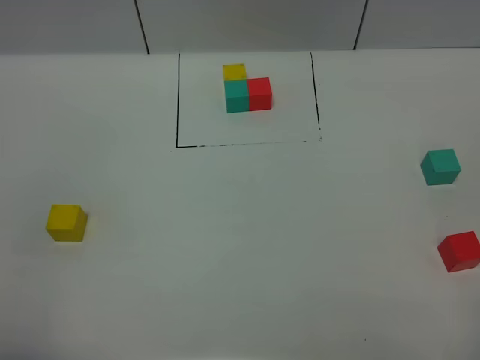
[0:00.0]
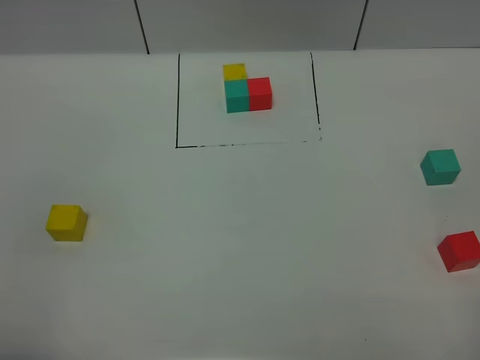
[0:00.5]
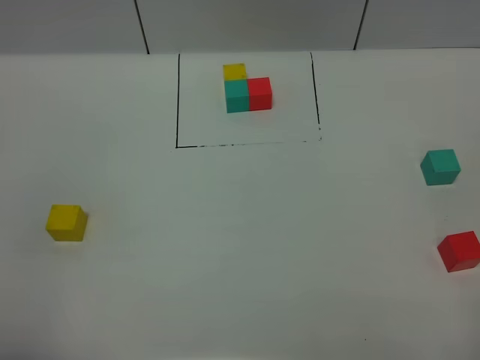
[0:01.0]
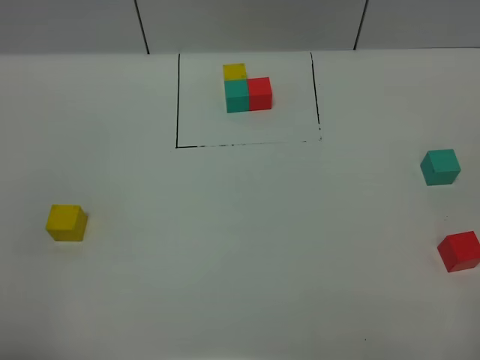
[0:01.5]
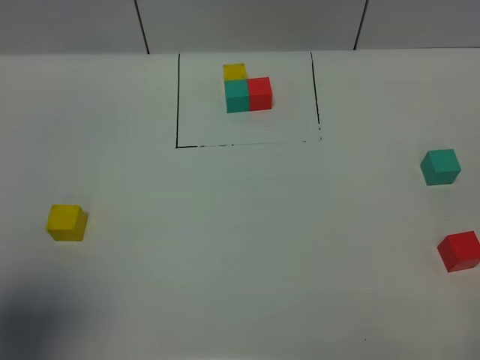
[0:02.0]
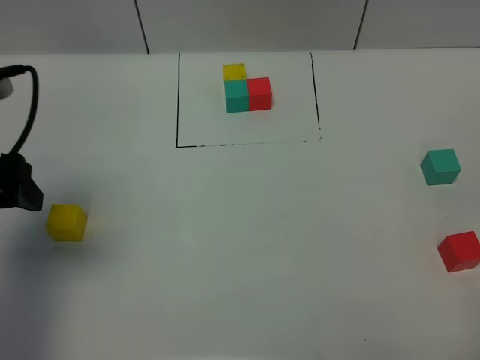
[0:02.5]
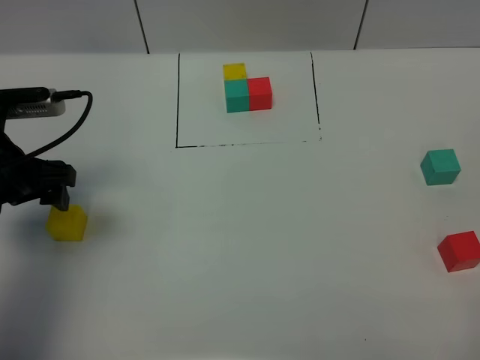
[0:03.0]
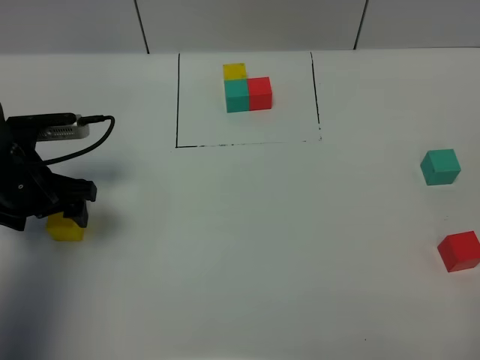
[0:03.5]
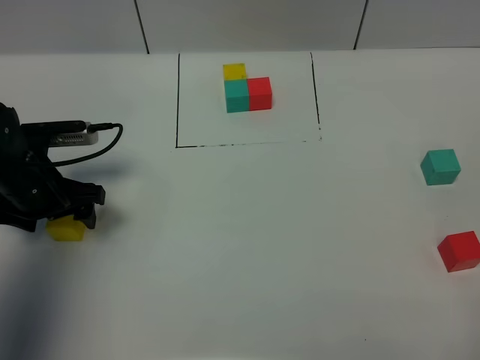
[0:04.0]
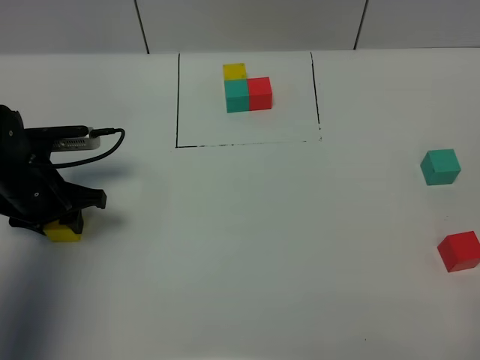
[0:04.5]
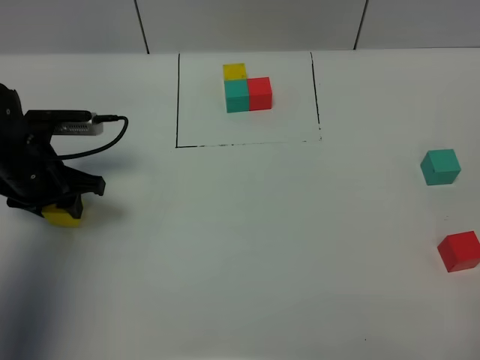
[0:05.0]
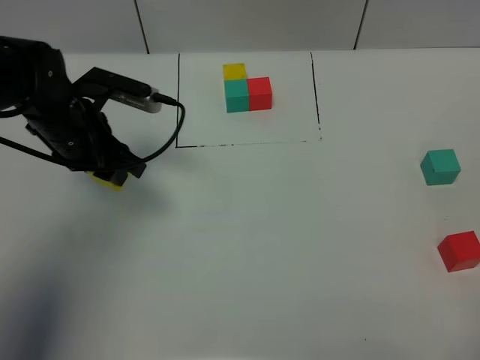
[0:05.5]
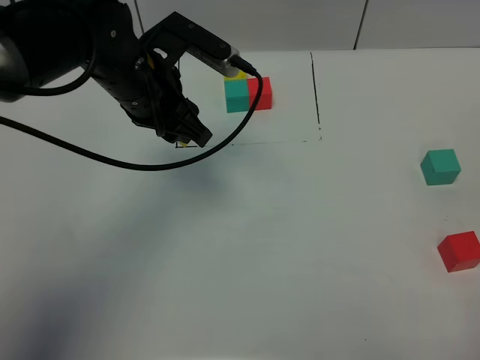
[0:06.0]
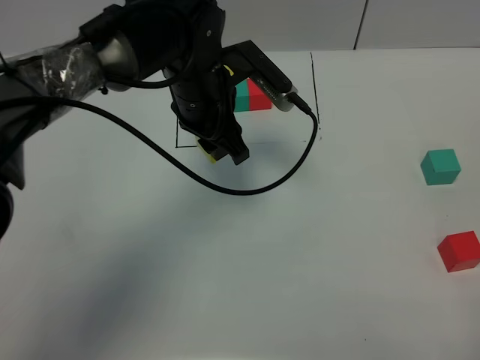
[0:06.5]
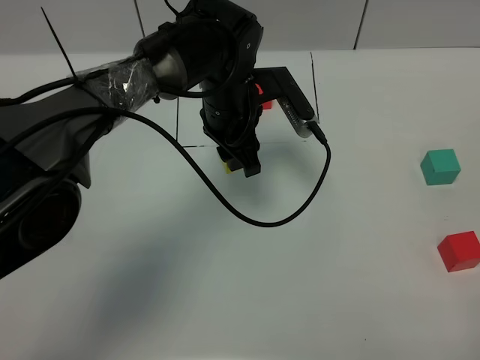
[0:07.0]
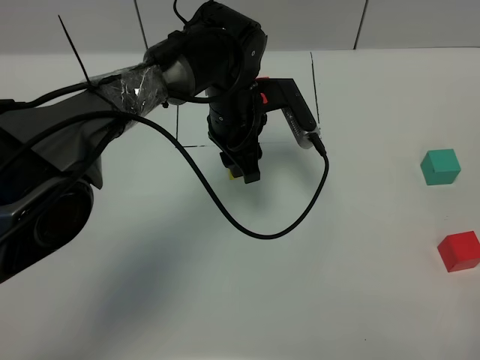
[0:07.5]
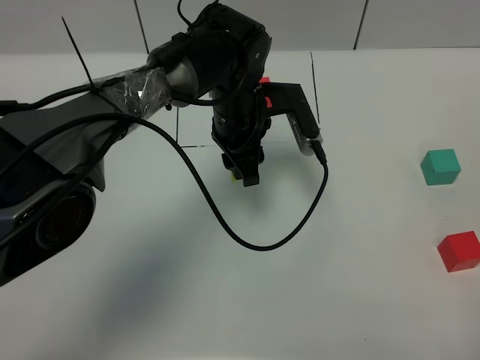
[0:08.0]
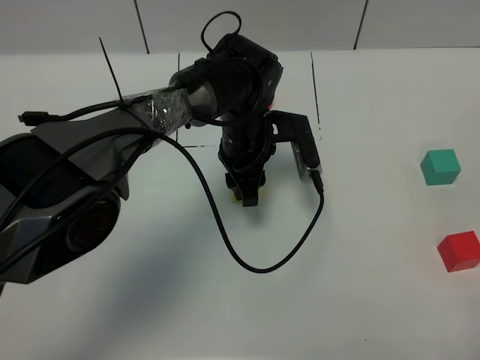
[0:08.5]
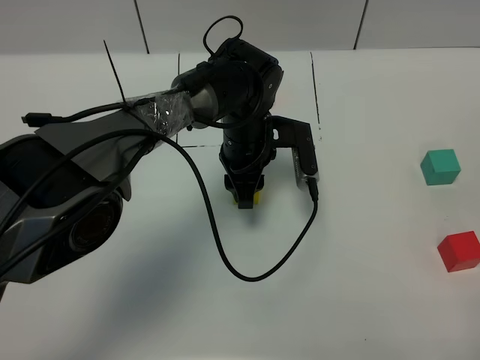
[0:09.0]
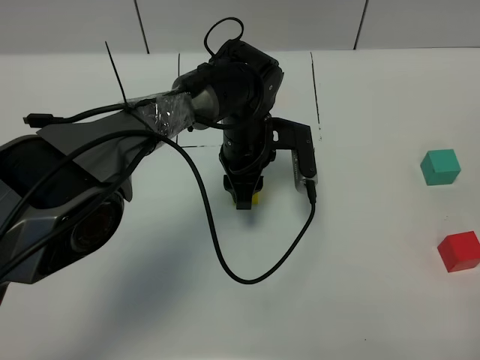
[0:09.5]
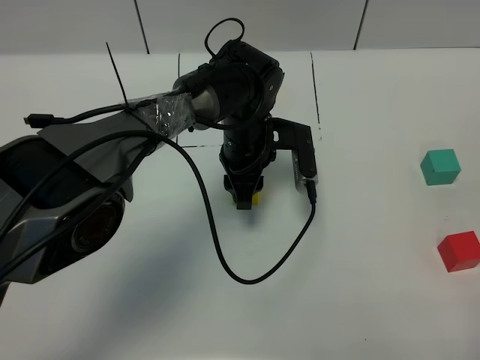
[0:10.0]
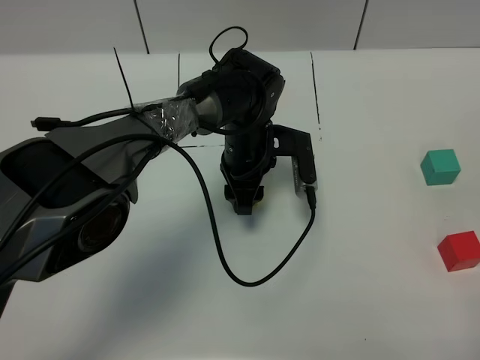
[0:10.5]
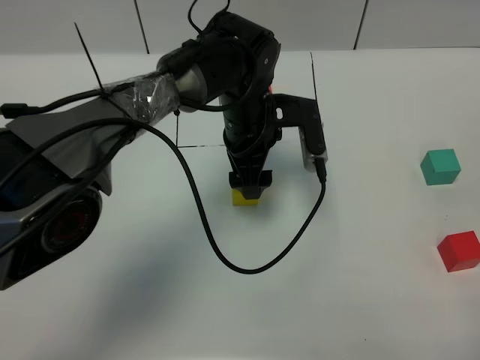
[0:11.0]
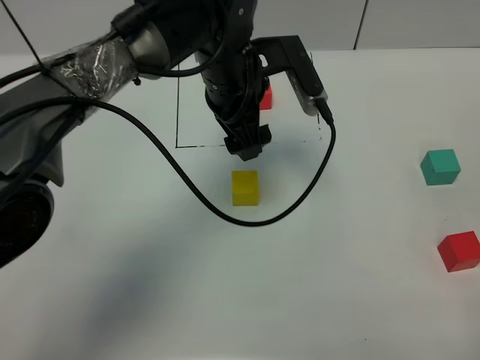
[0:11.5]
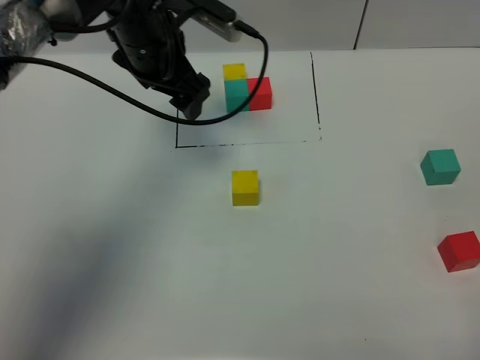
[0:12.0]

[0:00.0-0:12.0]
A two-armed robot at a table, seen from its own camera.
Task of the whole recording: According to the building block template in front, assemble the scattered blocks together.
Step, 0:00.0 to 0:10.5: Put the yellow build block in the center of the table.
0:00.0 to 0:02.0: The left gripper goes some 10 cm forward and upward.
0:02.0 to 0:04.0: The left gripper is displaced forward and downward by about 30 cm.
0:04.0 to 0:06.0: The left gripper shifts about 20 cm to the right and upward, and closes up.
0:06.0 to 0:08.0: The left gripper goes roughly 15 cm to the right and downward.
0:08.0 to 0:10.0: The left gripper goes roughly 5 cm downward.
0:10.0 to 0:12.0: The left gripper heads upward and to the left, covering about 20 cm, and opens up.

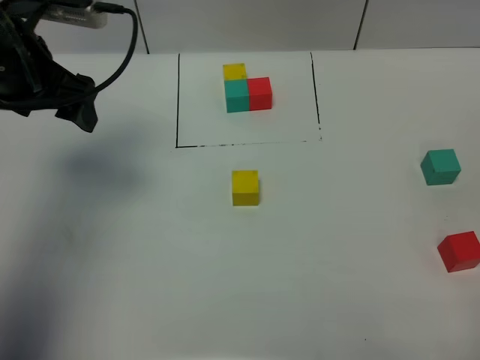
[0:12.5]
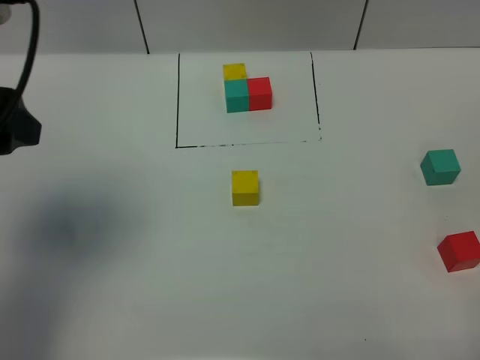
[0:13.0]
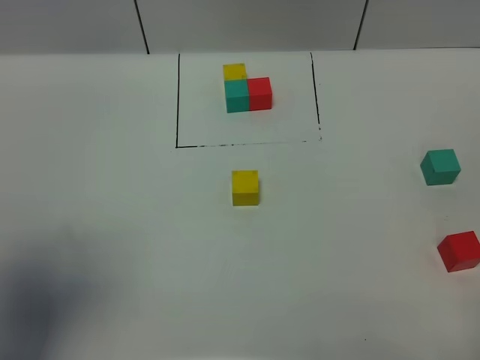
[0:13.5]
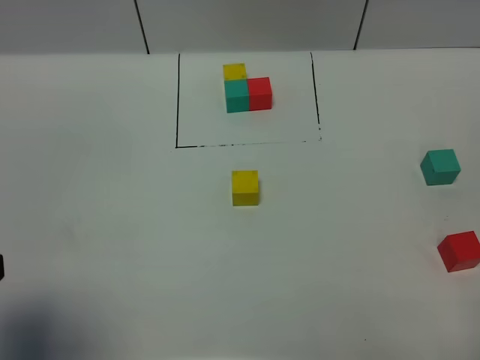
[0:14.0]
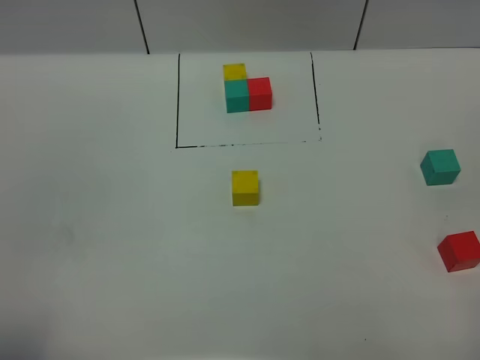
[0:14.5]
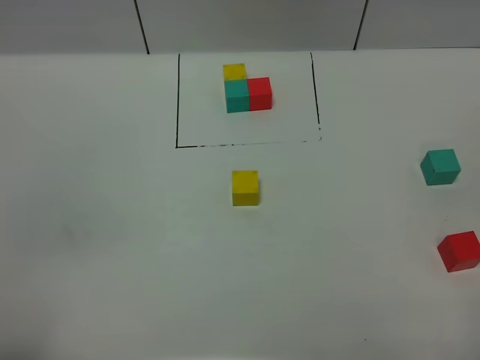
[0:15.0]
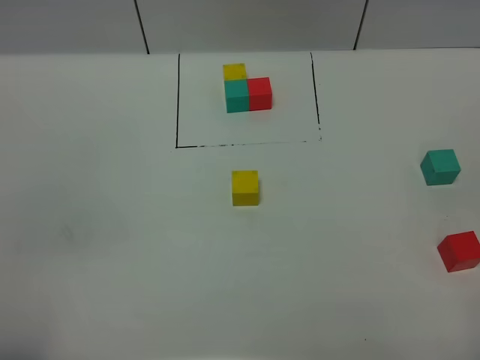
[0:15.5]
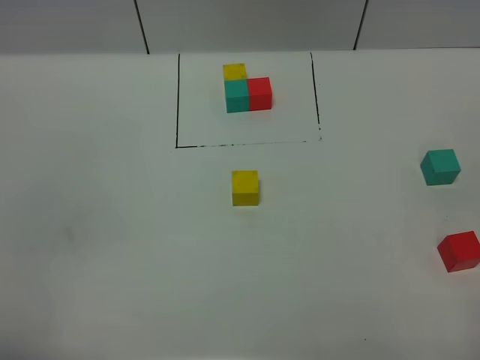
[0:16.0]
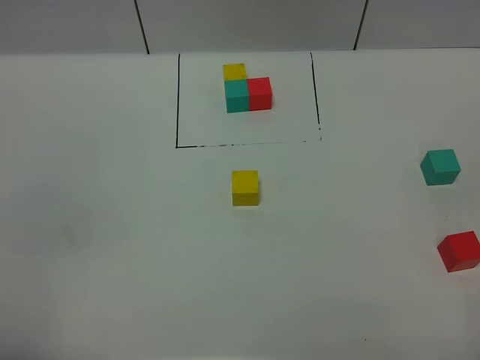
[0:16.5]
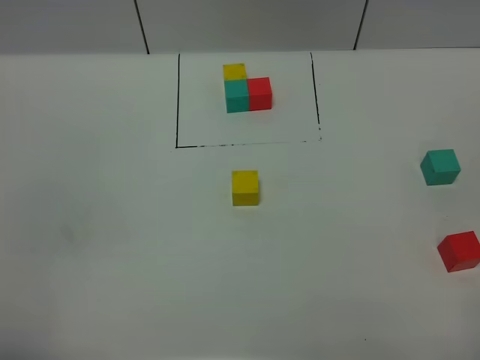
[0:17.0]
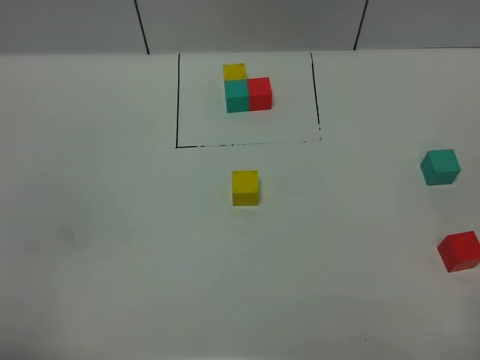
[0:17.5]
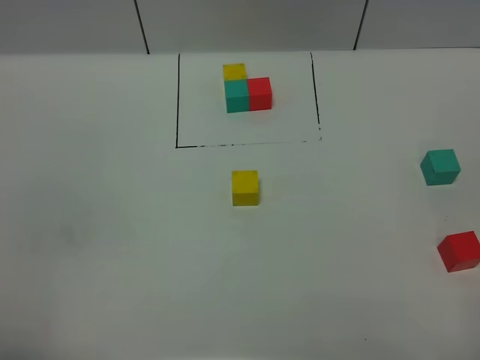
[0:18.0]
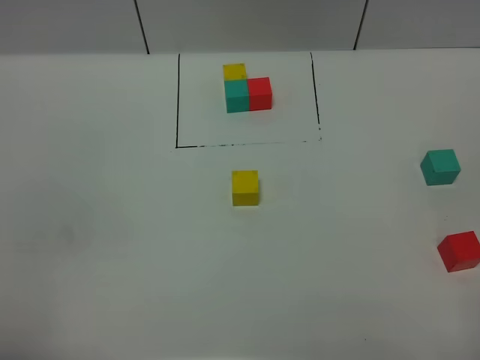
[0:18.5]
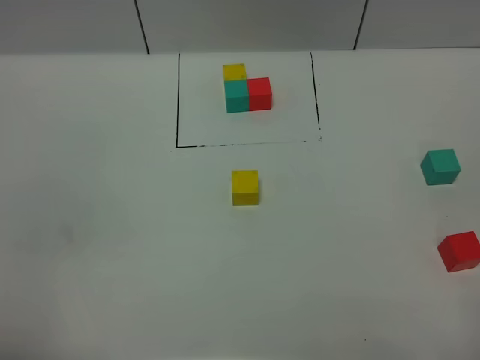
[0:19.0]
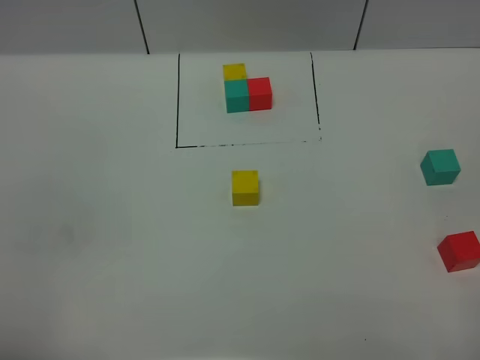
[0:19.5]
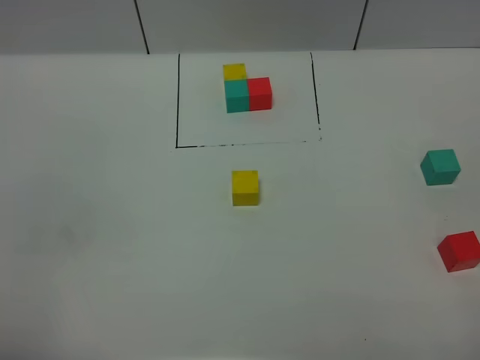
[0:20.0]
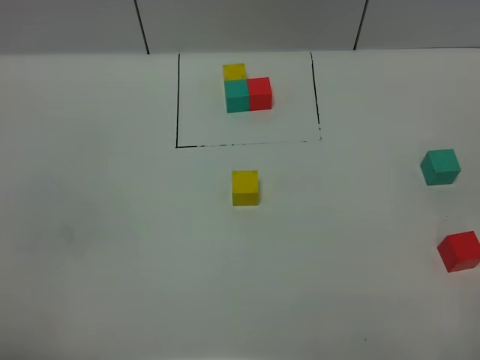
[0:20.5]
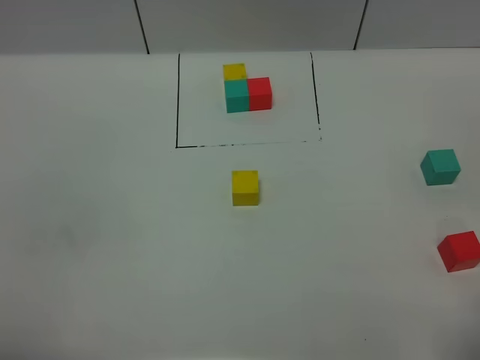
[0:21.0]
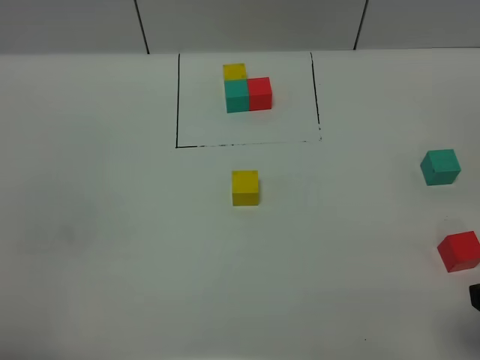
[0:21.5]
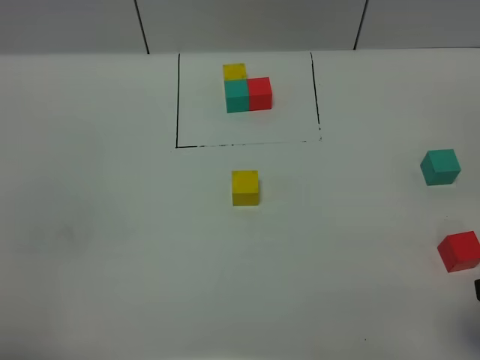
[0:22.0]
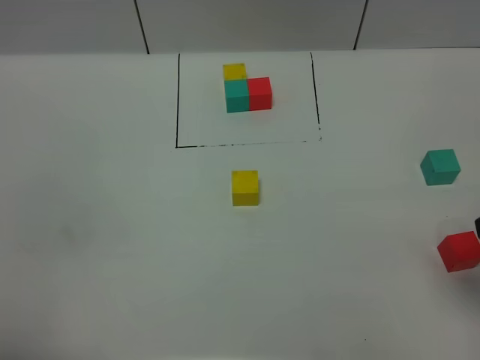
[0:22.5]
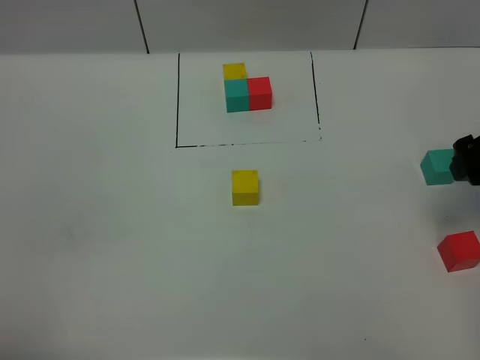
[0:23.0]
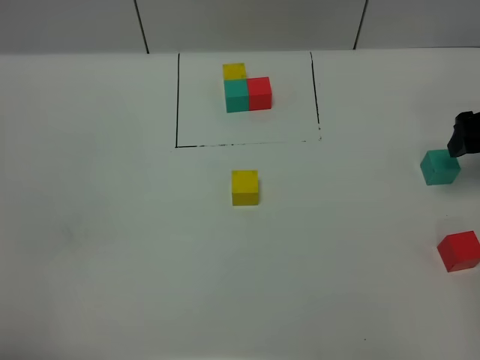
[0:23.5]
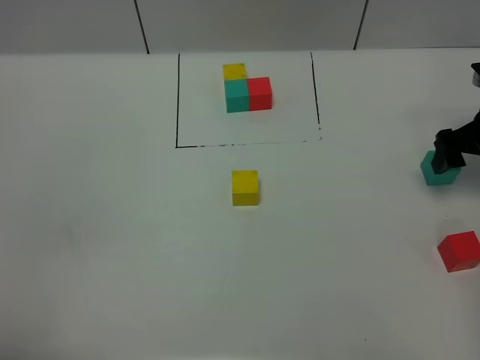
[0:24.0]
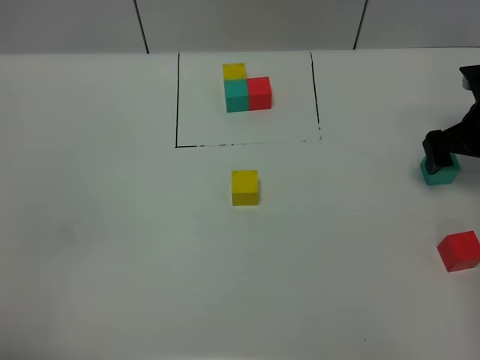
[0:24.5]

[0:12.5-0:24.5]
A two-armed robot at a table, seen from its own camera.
Task of the whole recording: According to the building block template in front, assemble the scattered blocks together.
0:12.5 to 0:14.5: The left gripper travels backward by approximately 35 cm.
0:16.5 to 0:20.5: Neither gripper changes place.
0:22.5 to 0:24.5: The right gripper heads forward and downward, covering roughly 25 cm.

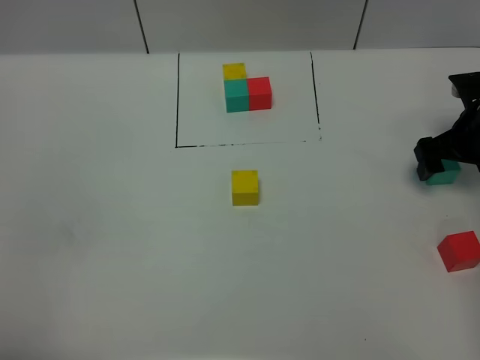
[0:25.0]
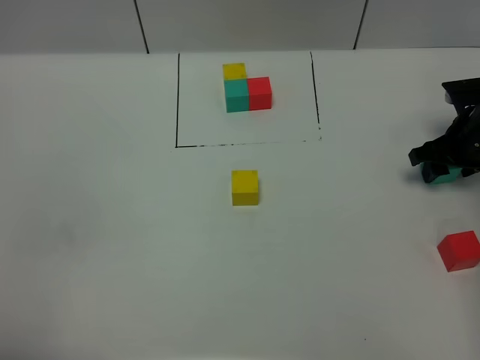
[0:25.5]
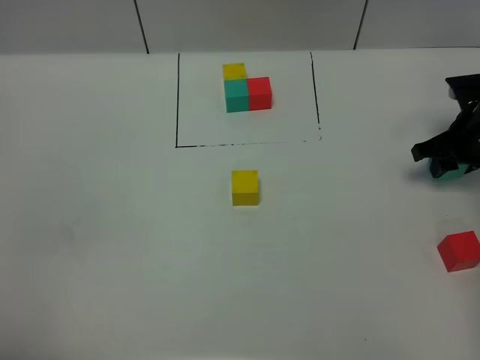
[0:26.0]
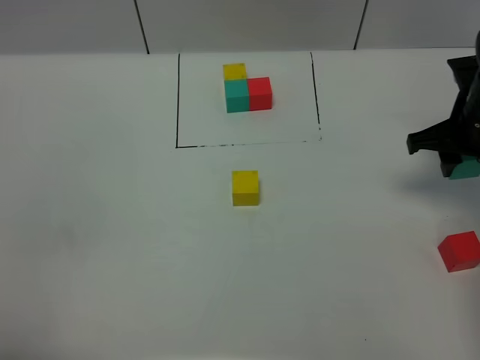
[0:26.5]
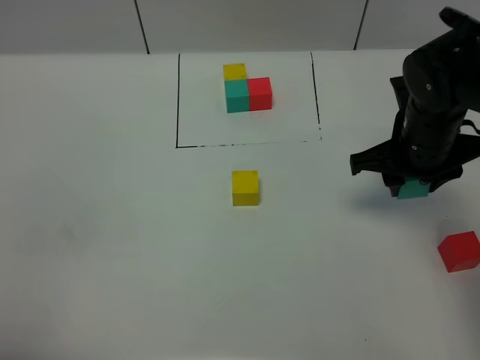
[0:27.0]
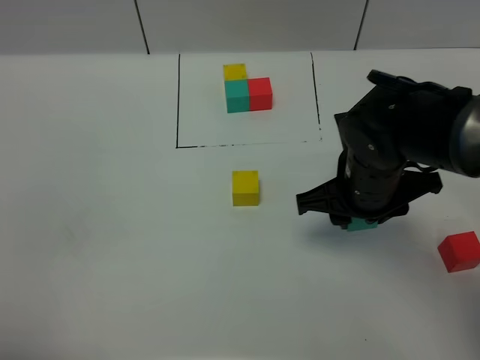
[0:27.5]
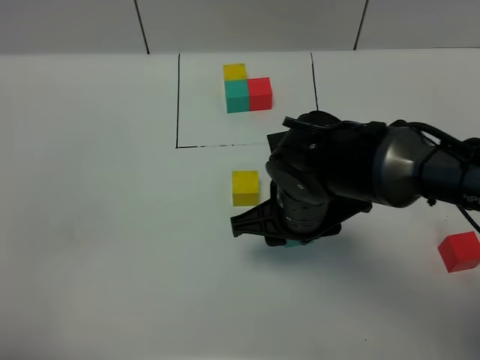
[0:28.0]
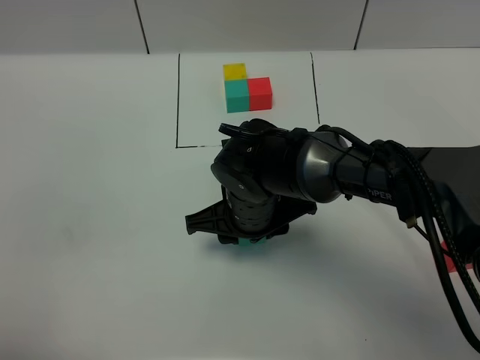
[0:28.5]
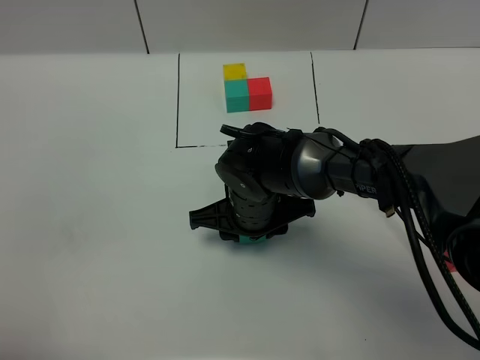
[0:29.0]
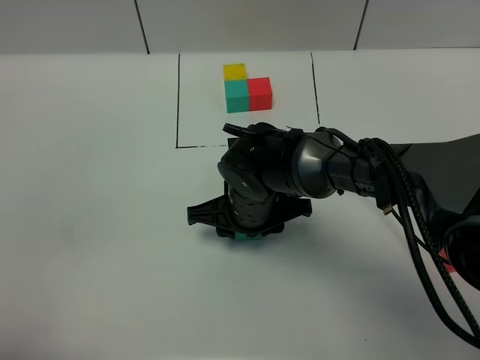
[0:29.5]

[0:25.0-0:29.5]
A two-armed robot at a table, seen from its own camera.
Task of the whole recording: According to the building block template in front, assemble the scattered blocks together.
0:25.0 to 0:27.0: The right gripper is displaced to the left, upward and backward by approximately 15 cm, and closes up.
0:27.0 to 0:29.5: The right gripper shifts some 20 cm to the left and downward.
